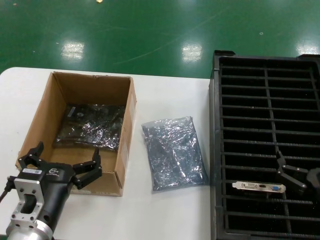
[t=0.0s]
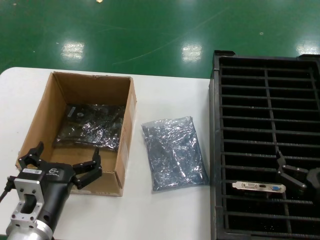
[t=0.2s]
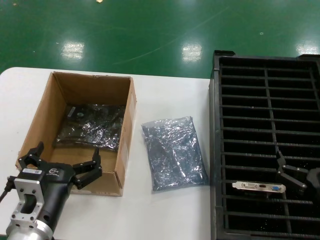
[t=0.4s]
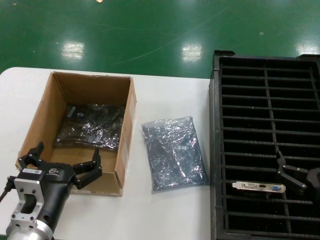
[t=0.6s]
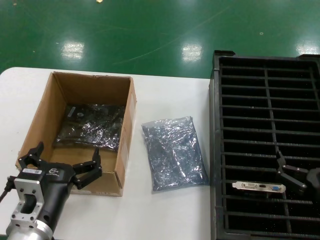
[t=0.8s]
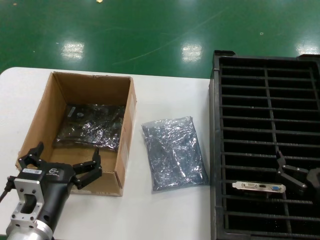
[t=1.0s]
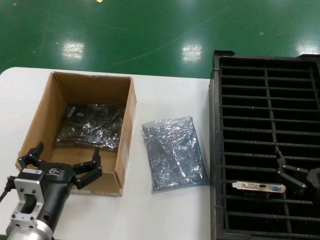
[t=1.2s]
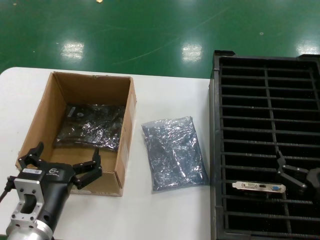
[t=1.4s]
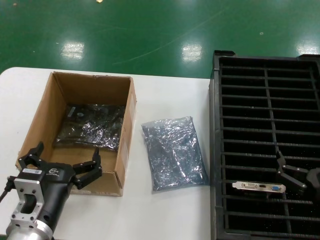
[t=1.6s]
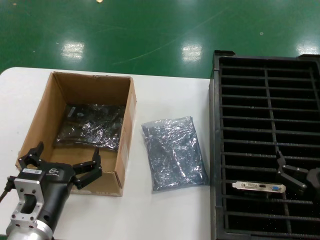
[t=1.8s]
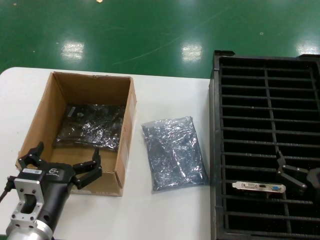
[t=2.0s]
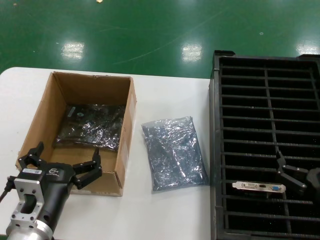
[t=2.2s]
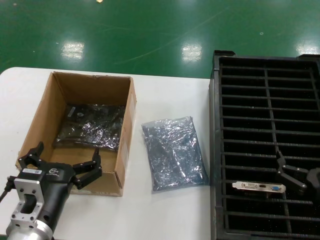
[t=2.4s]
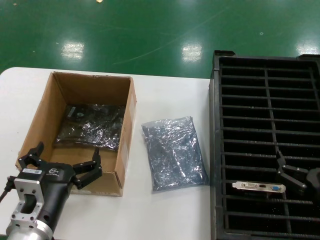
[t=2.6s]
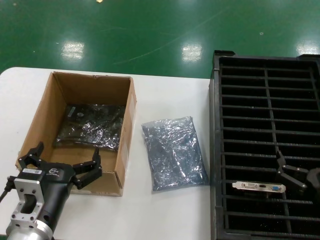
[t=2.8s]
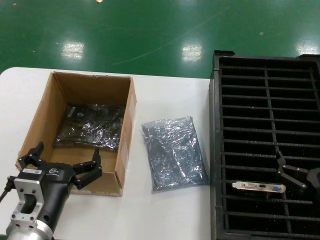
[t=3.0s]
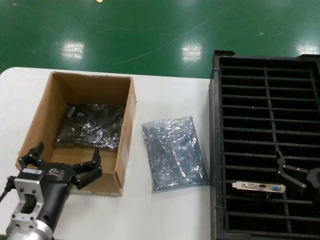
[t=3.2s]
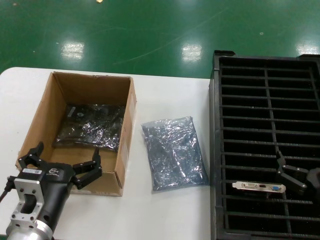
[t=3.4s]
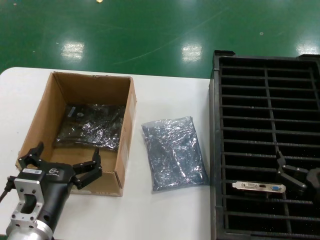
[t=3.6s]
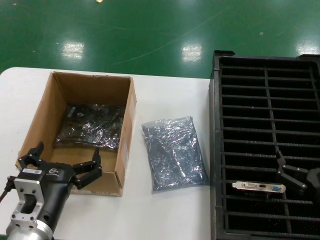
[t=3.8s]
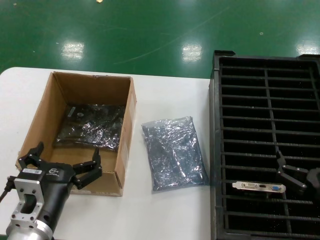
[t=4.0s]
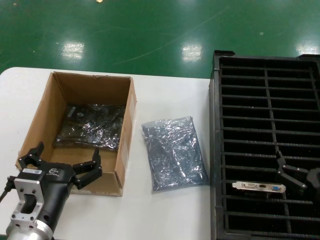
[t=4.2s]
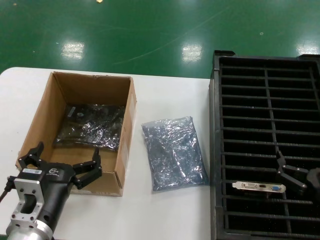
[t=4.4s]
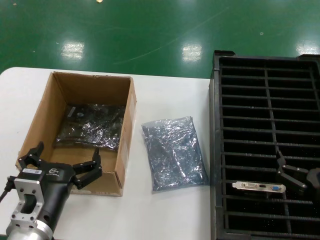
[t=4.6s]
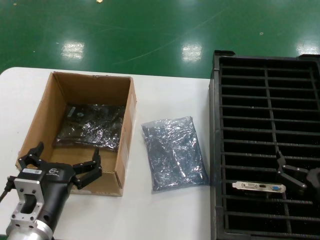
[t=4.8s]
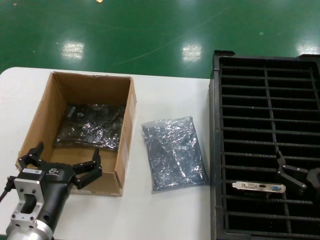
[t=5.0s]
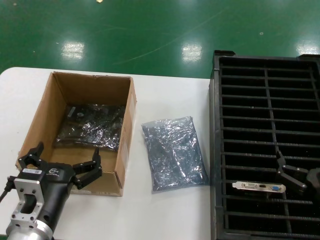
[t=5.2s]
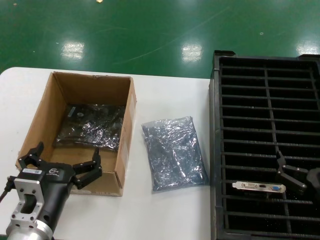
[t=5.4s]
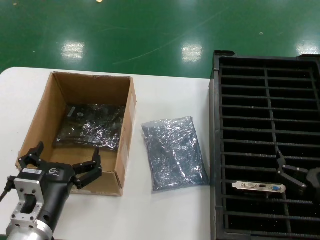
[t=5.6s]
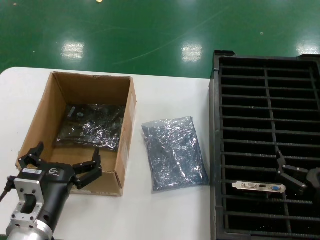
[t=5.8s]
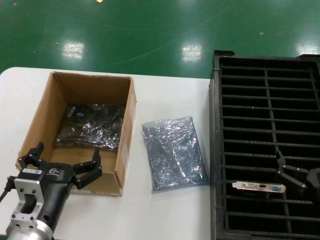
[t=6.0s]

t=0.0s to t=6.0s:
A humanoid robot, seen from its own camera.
Task of the whole recording: take out graphics card from box remove packaging put into black container.
t=0.0s to t=6.0s: Both hands stay put.
